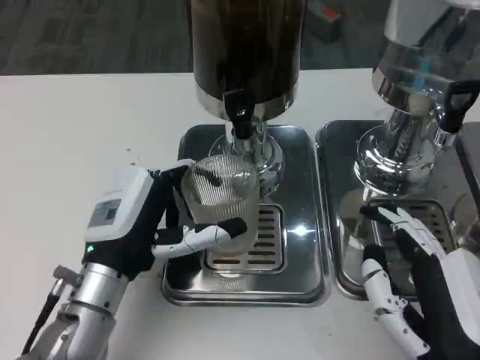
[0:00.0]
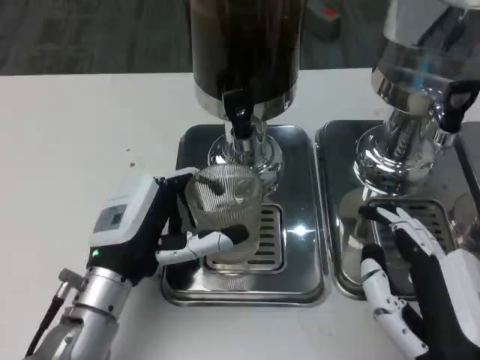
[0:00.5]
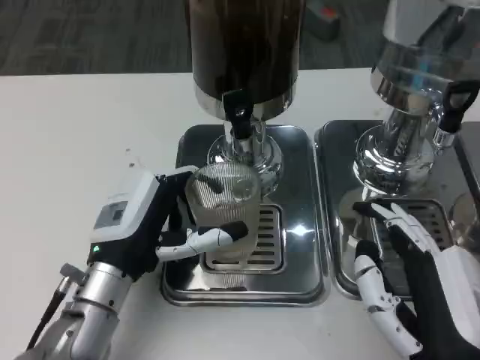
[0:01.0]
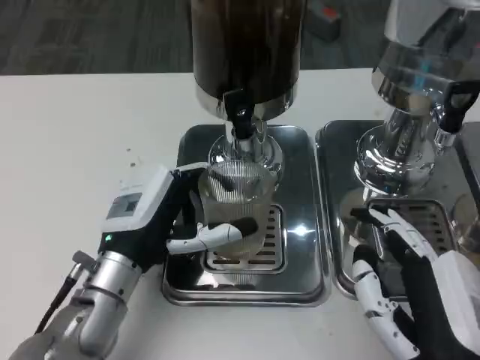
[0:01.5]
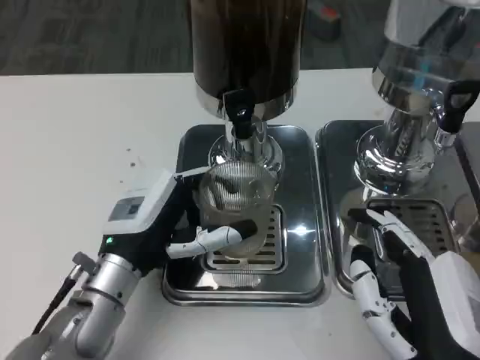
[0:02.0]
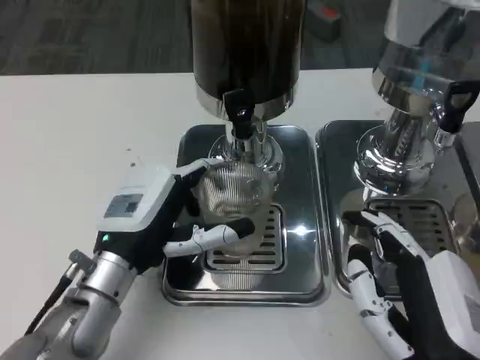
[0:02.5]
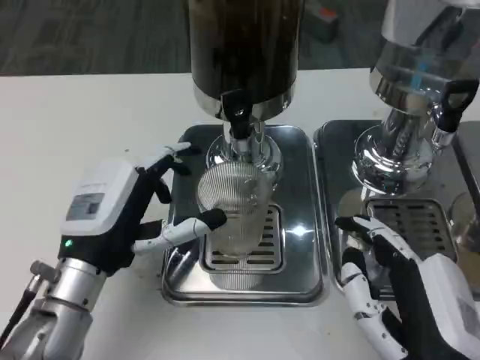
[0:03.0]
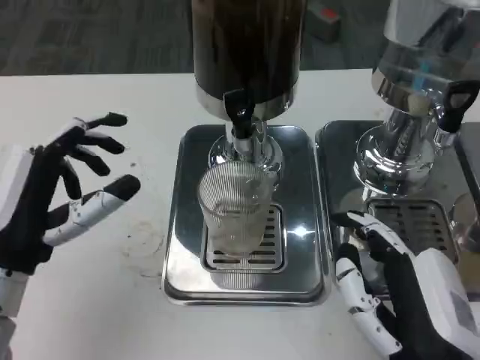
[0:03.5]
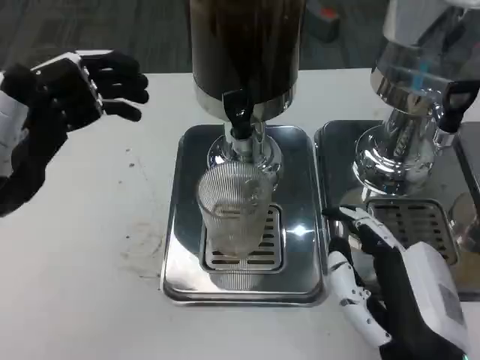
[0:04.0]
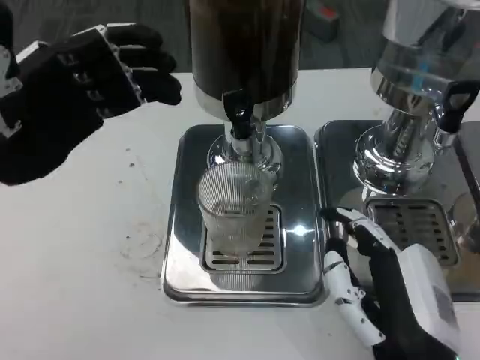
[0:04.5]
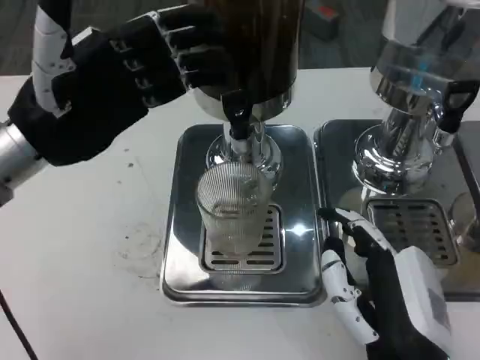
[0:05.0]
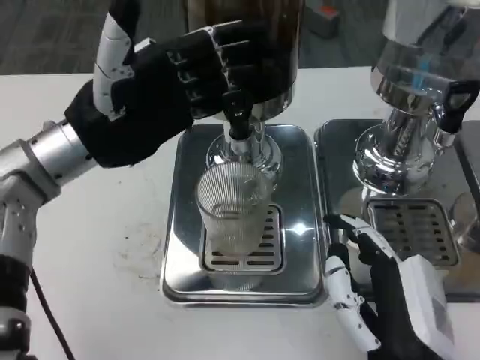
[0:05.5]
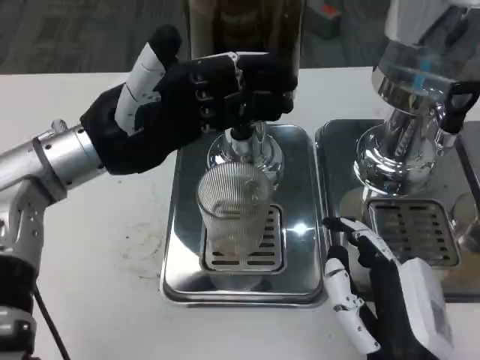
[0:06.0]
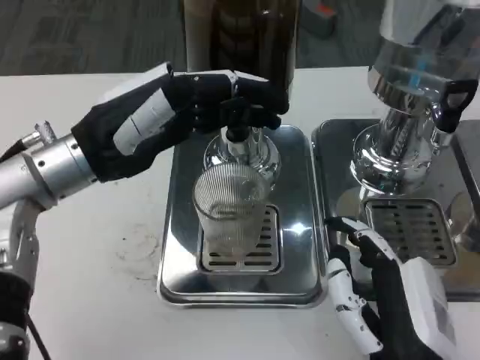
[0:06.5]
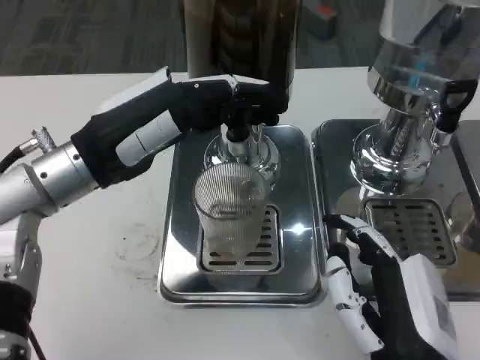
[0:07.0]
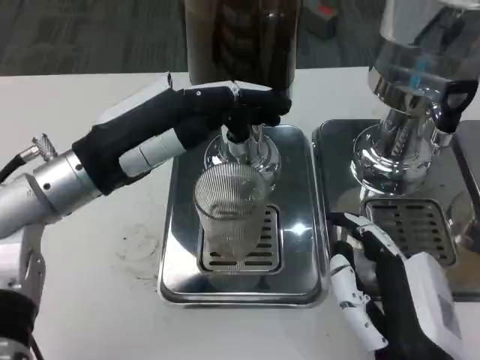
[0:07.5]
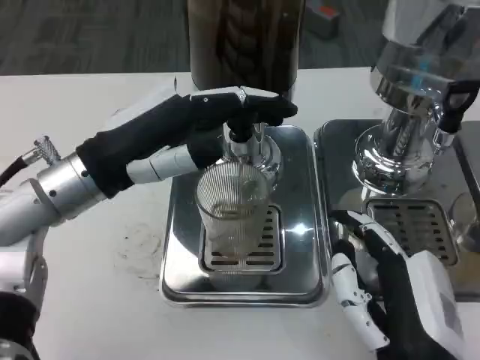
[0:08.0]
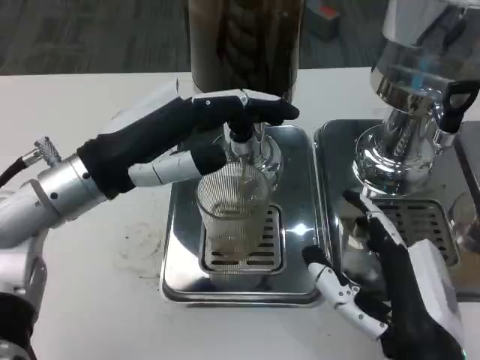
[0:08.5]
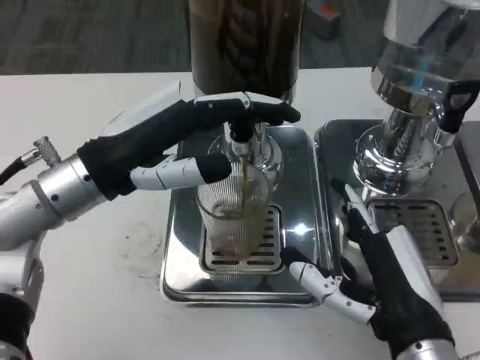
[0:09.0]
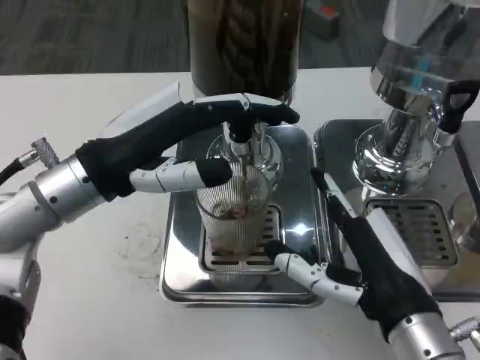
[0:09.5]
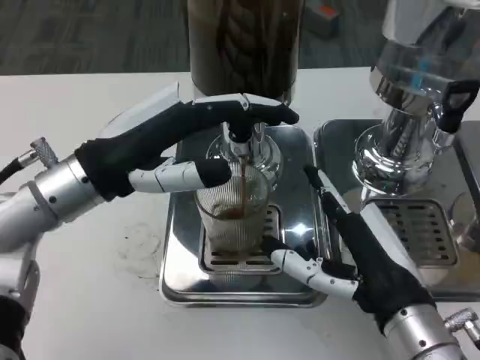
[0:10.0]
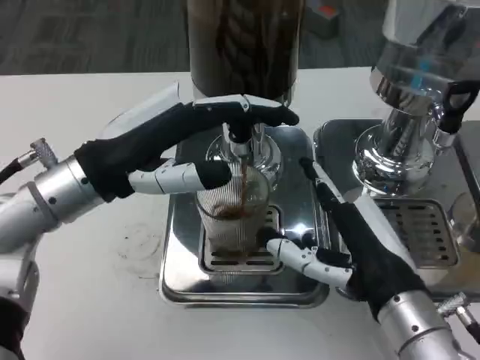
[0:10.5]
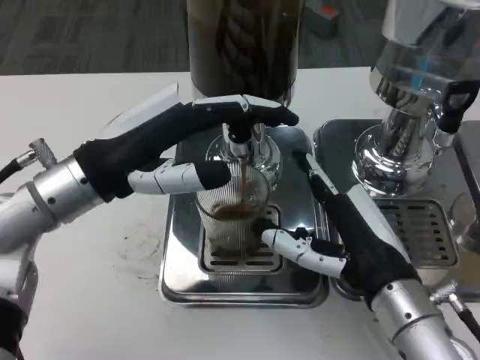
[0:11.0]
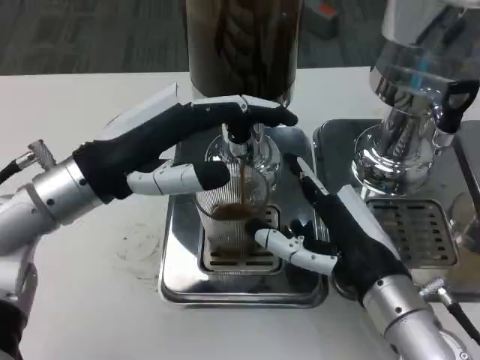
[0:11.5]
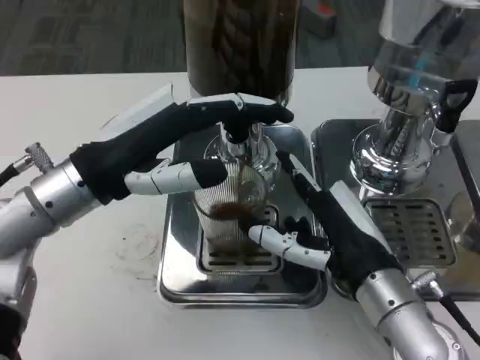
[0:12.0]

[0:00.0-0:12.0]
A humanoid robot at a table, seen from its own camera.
Task of the whole recording: Grasp the cup under the faucet to collect the drink, then remove the cup.
0:00.0 to 0:02.0: The hands make only small movements.
0:02.0 to 0:04.0: The left hand travels upward and to the left by about 15 cm.
0:04.0 to 0:06.0: The left hand heads forward and to the right, covering some 10 cm.
0:08.0 to 0:10.0: The right hand is displaced forward by roughly 5 cm.

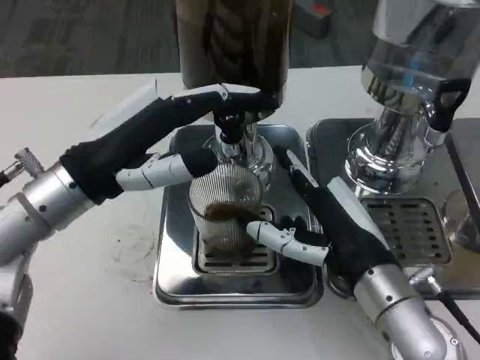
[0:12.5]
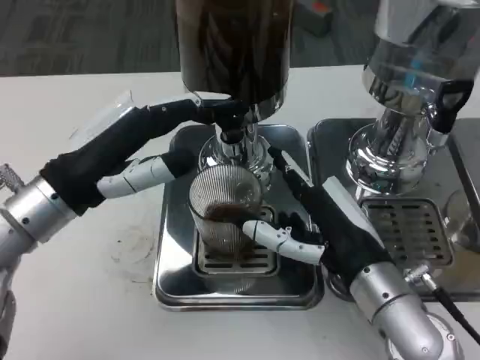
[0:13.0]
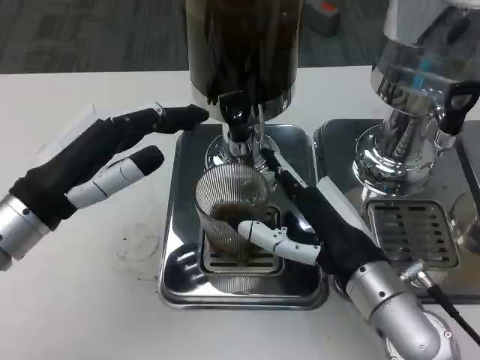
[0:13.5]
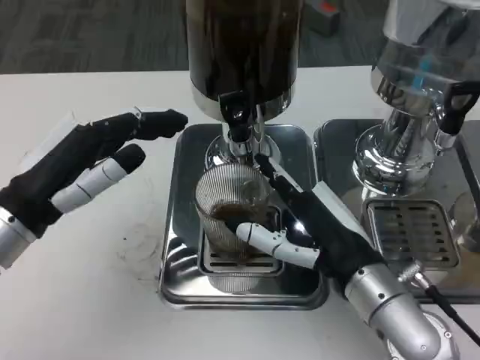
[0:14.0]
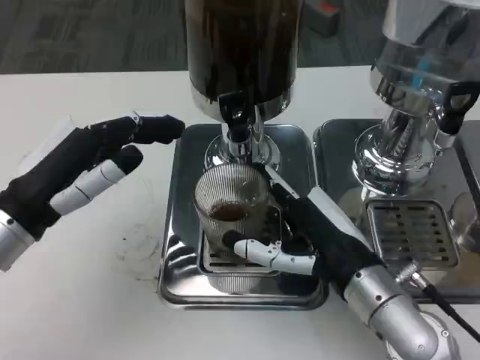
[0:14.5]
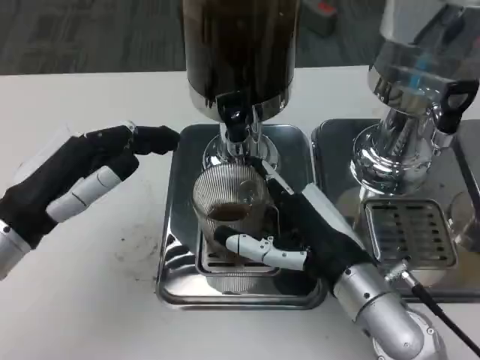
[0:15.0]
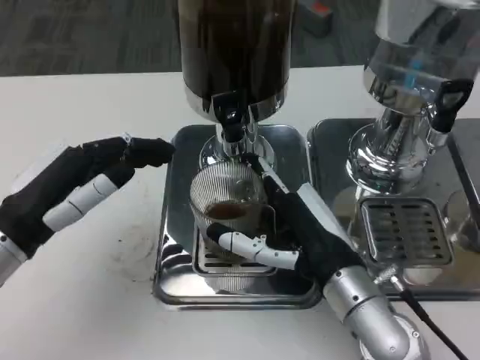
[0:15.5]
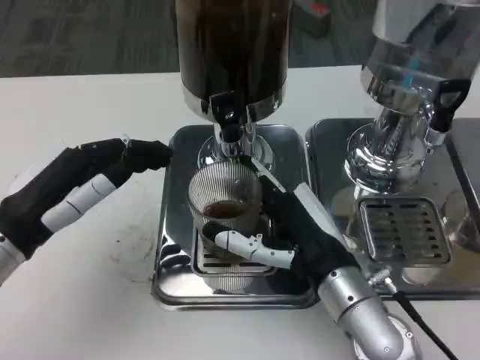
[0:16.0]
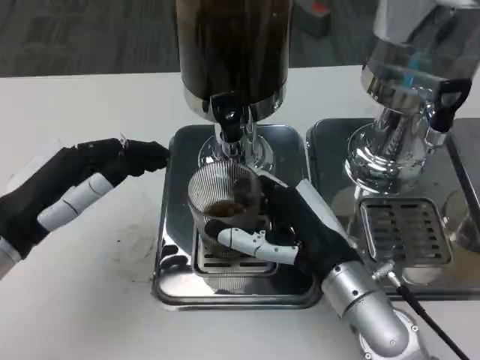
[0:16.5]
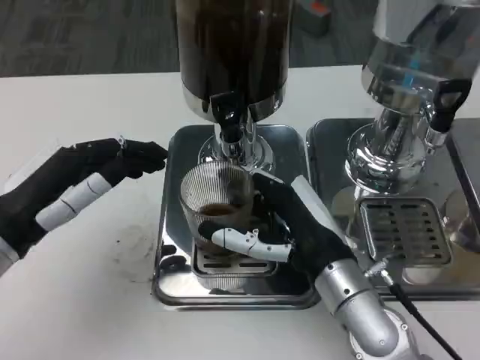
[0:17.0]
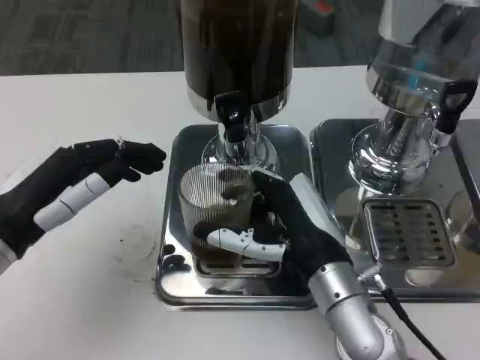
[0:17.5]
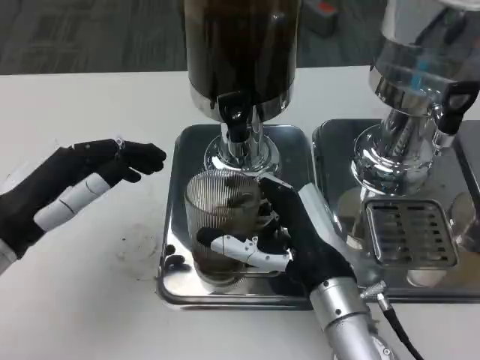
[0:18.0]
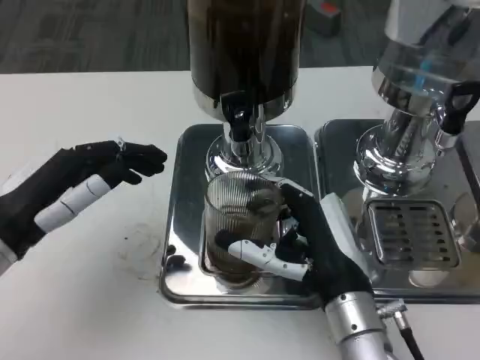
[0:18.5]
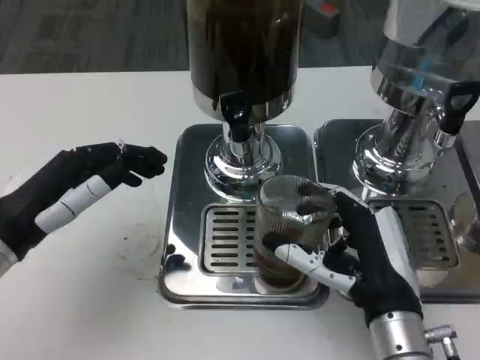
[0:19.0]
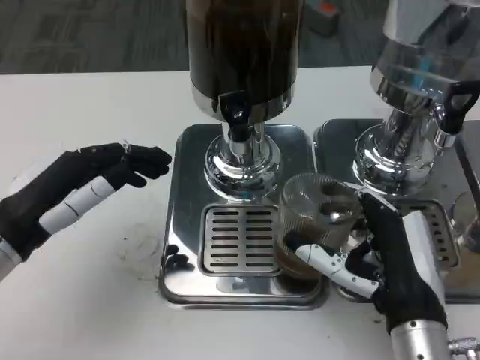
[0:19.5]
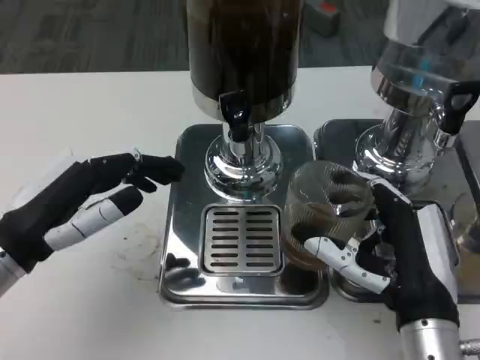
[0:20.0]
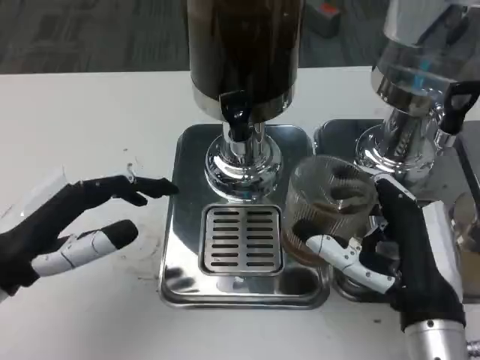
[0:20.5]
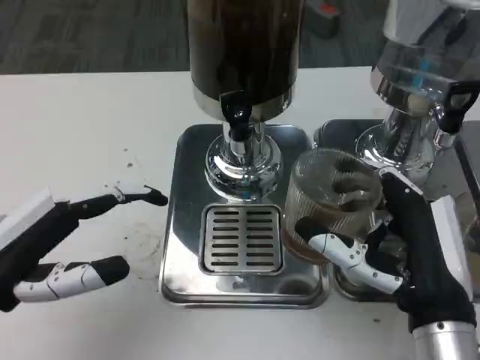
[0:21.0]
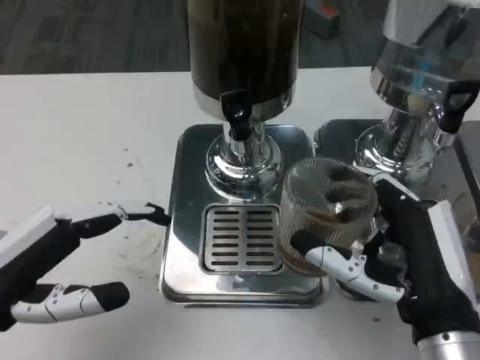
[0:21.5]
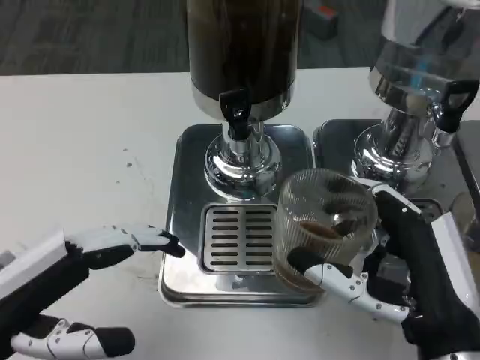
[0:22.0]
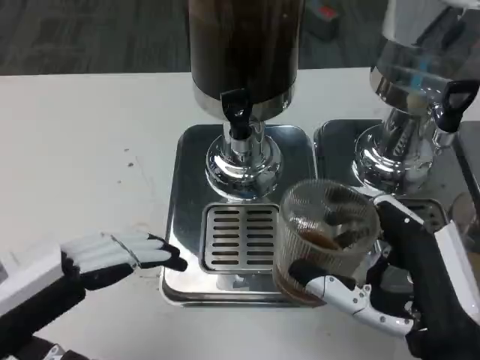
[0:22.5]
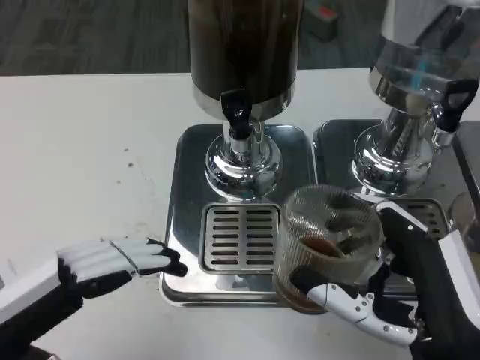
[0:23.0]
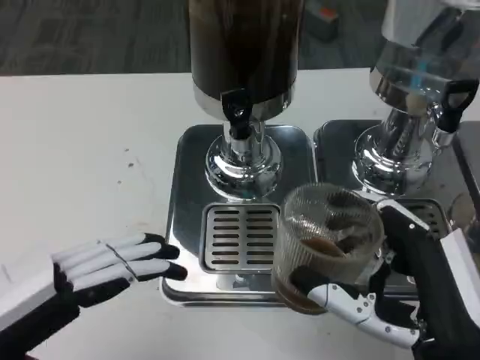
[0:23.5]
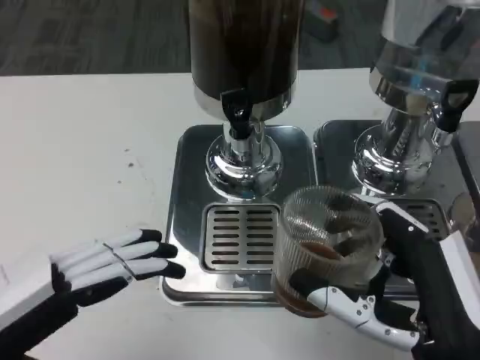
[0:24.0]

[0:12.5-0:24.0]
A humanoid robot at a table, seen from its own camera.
Task of the whole recording: Grasp the cup under the faucet to collect the drink, then remove the cup.
0:12.5 to 0:14.5: The left hand moves about 5 cm.
0:18.5 to 0:20.0: The right hand ends up approximately 5 cm from where it was.
0:20.0 to 0:22.0: The left hand heads backward, covering about 5 cm. Meanwhile the right hand shifts by some 5 cm.
0:22.0 to 0:24.0: There are only small adjustments of the hands.

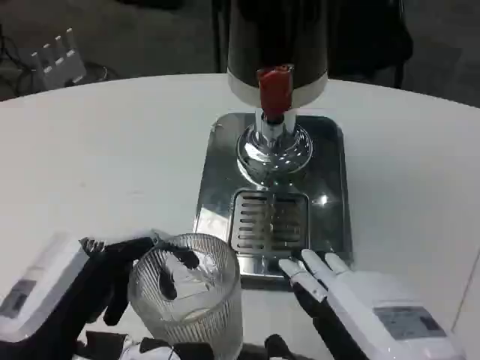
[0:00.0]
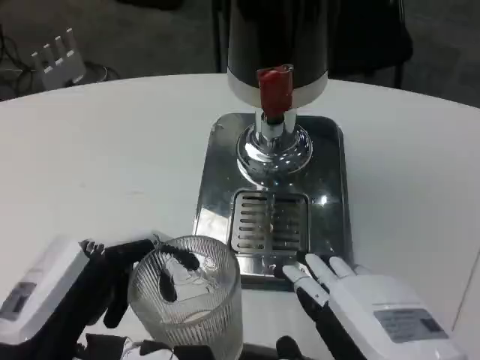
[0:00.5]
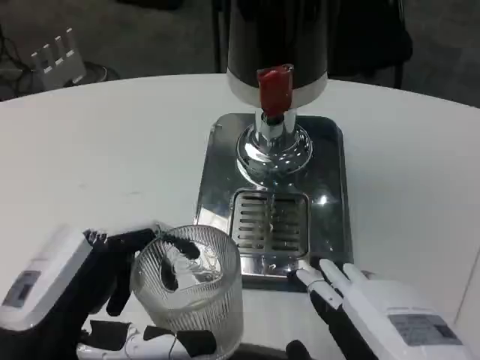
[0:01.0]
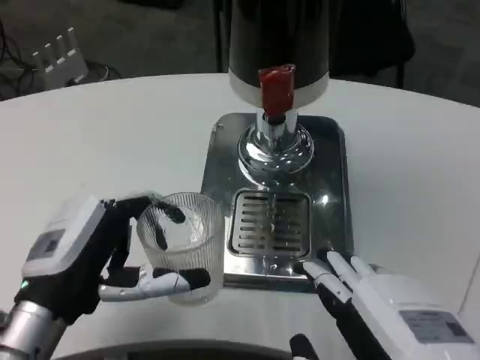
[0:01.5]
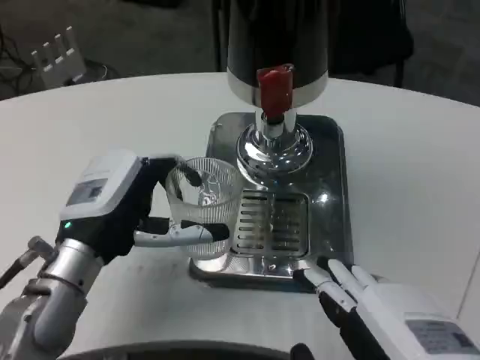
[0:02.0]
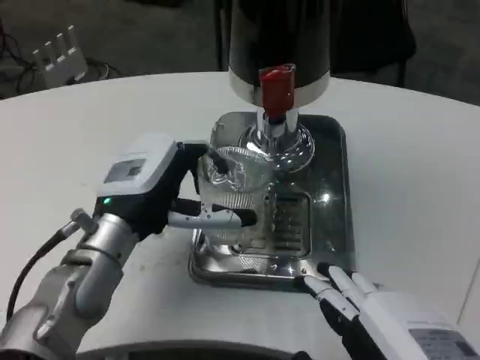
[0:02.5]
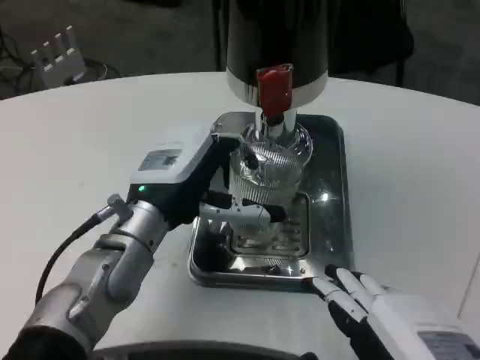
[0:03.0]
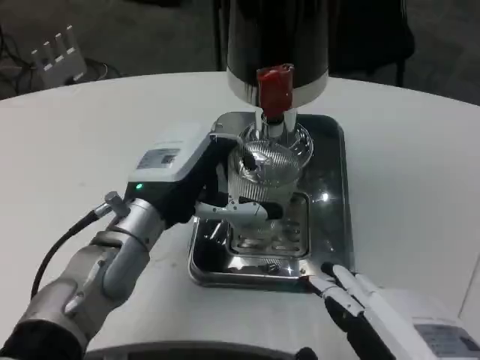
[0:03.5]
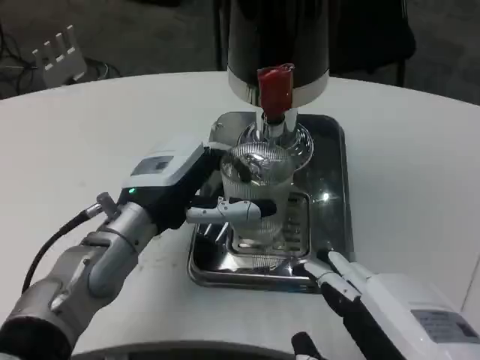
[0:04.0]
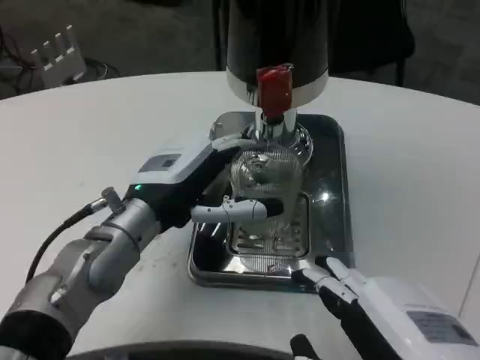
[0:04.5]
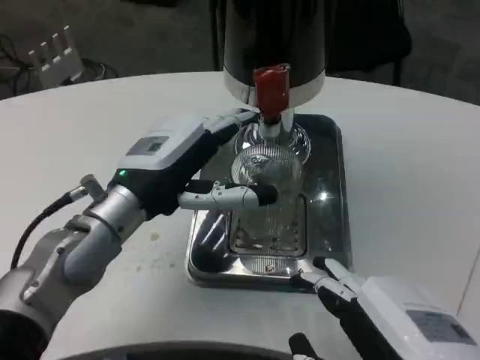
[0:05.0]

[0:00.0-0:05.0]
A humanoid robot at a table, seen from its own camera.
Task of the whole recording: Grasp the cup under the faucet to collect the drink, then remove the cup.
0:00.0 to 0:02.5: The left hand is displaced forward by some 15 cm.
